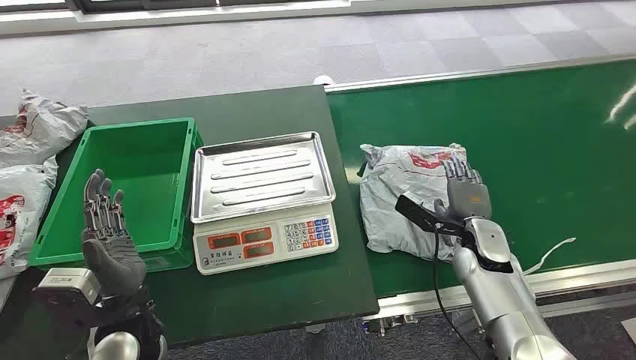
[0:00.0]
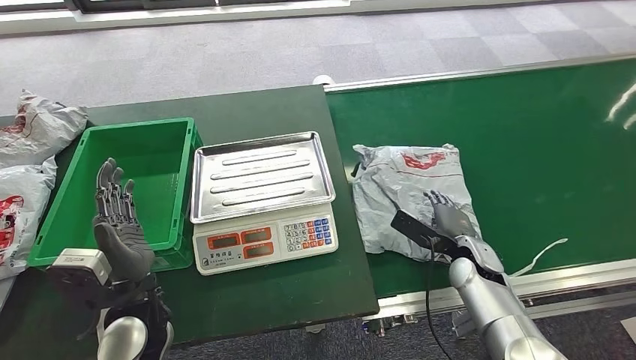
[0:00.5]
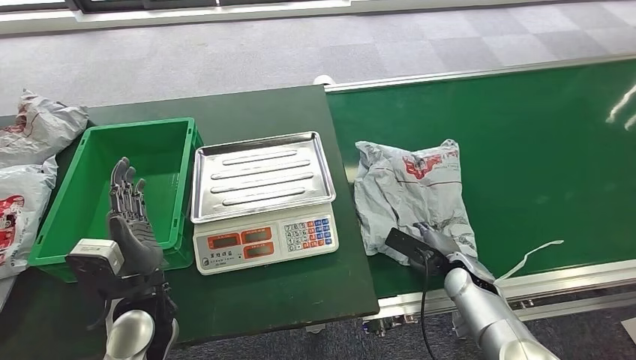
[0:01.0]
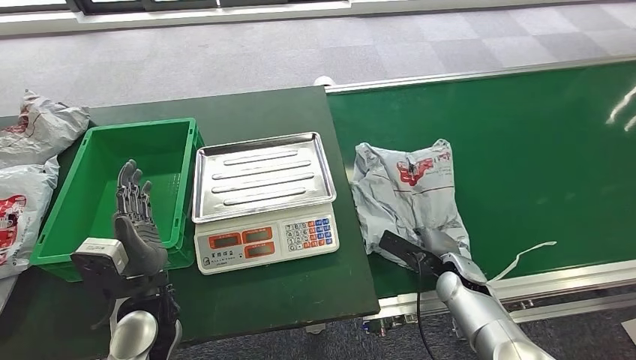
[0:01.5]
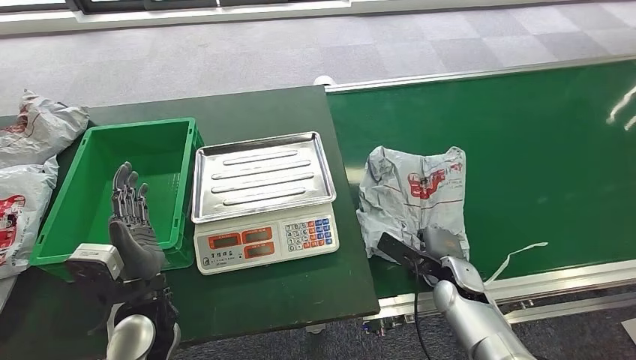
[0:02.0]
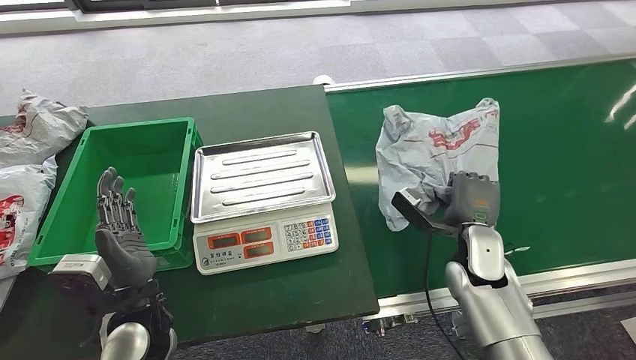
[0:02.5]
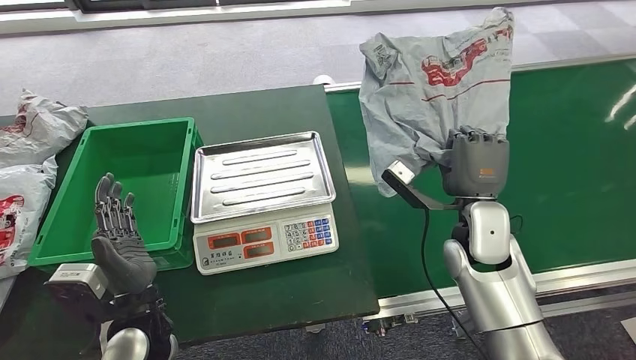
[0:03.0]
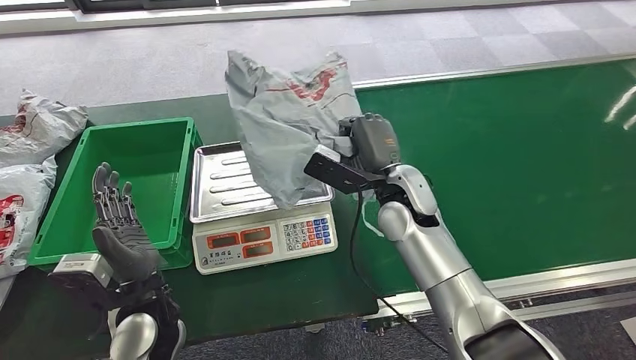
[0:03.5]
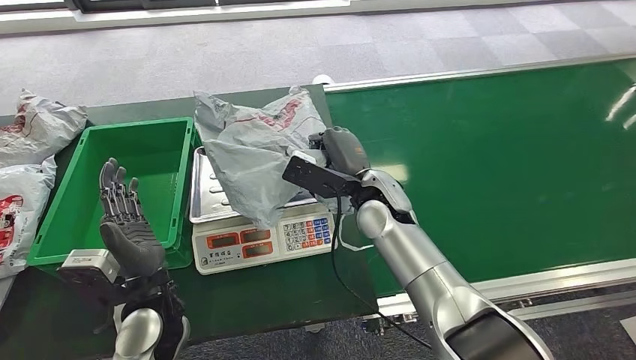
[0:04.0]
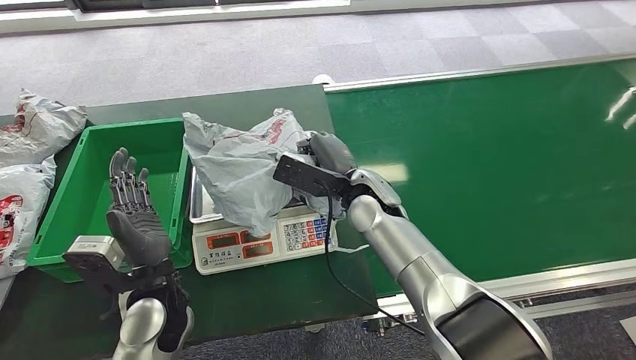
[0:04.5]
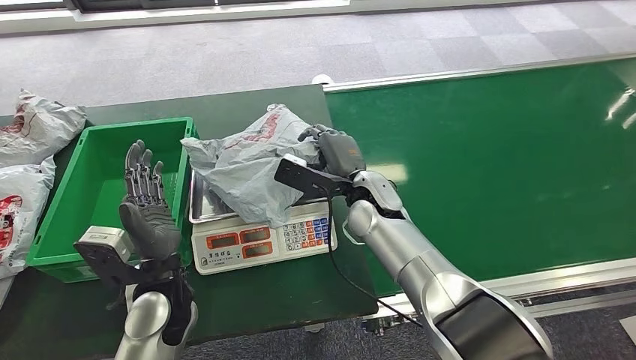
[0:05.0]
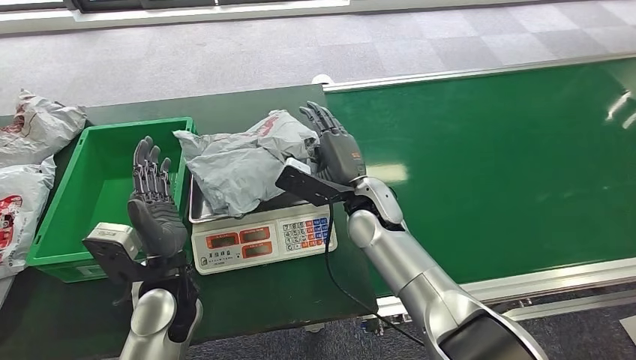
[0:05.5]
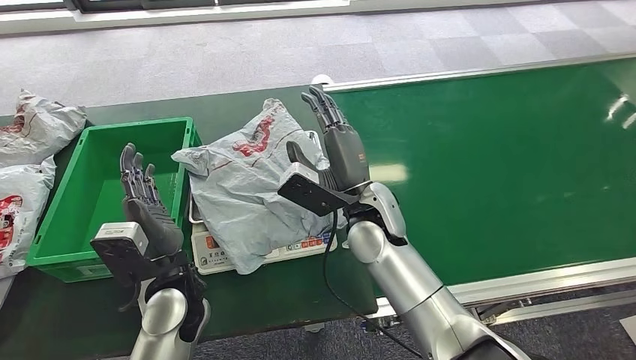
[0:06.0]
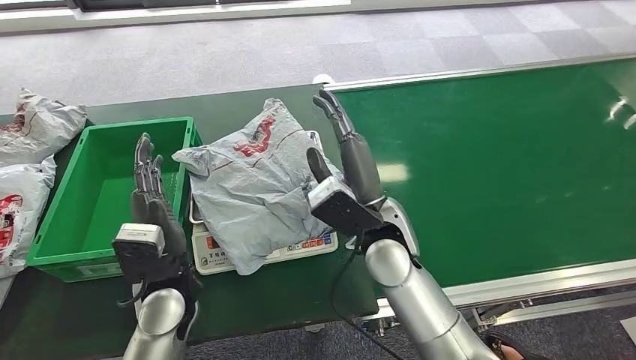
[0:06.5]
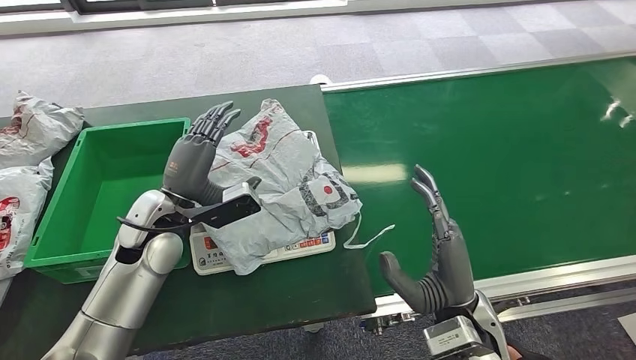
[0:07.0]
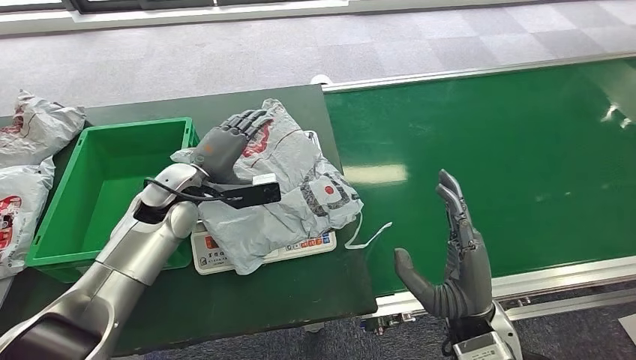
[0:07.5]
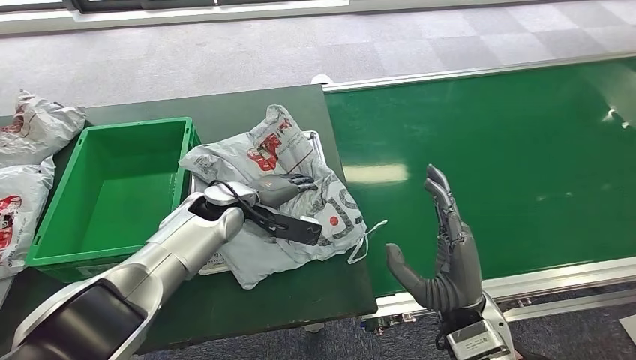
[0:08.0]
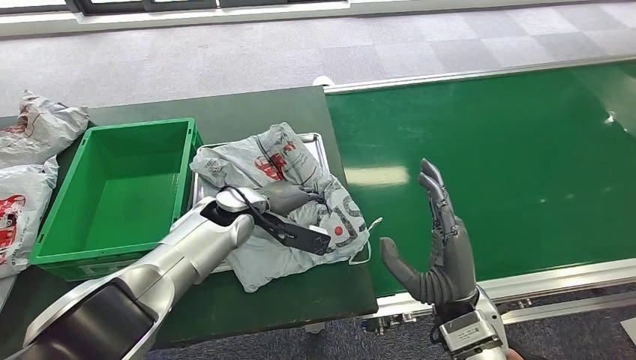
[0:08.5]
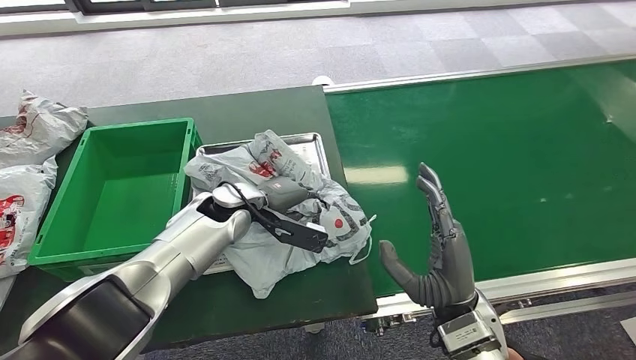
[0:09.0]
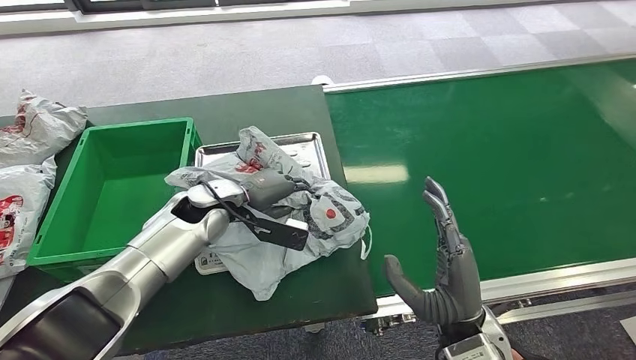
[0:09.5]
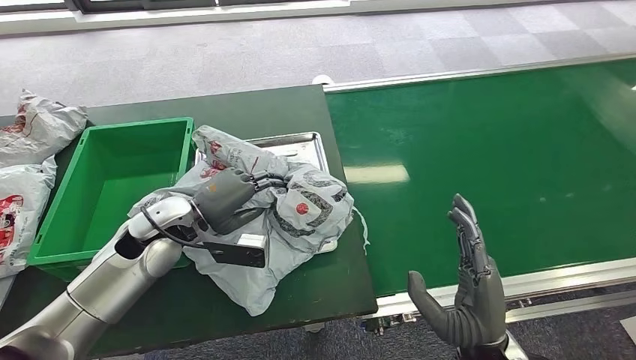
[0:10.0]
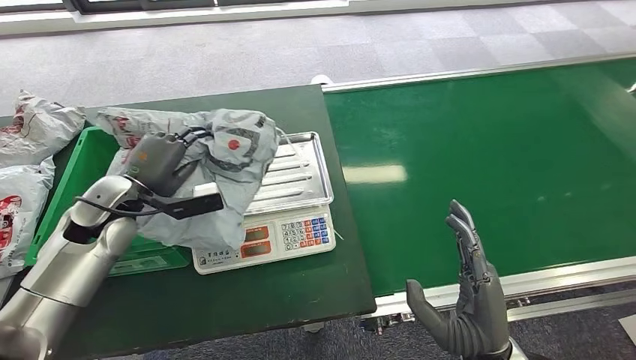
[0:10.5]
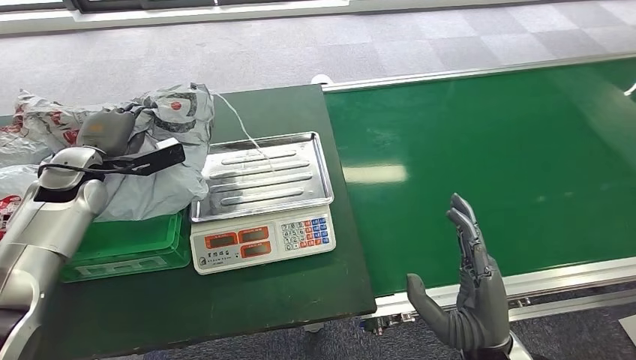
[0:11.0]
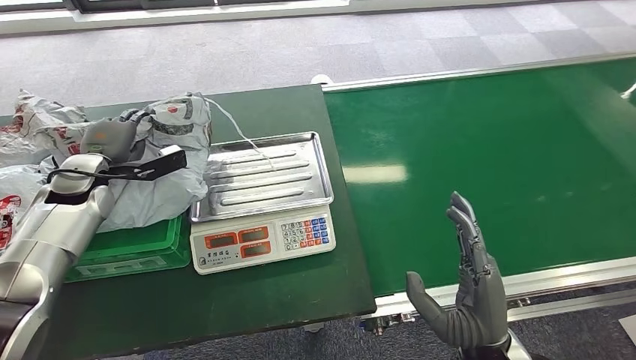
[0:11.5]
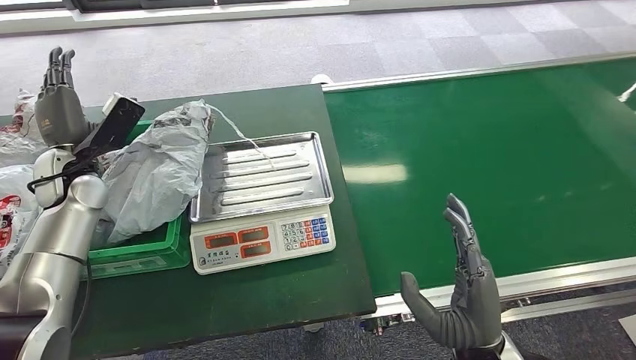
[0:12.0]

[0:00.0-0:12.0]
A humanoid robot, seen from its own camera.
Step, 0:00.0 to 0:03.5: Pick up the package from the conveyor belt.
Step, 0:04.0 to 0:07.0: Place the package onto the inbound machine.
Step, 0:07.5 to 0:11.0: Pick up the package from the inbound machine.
Step, 0:11.5 to 0:12.0: Place the package into the parcel locker.
0:04.0 to 0:06.0: The hands stay close to where they were, moving slightly.
